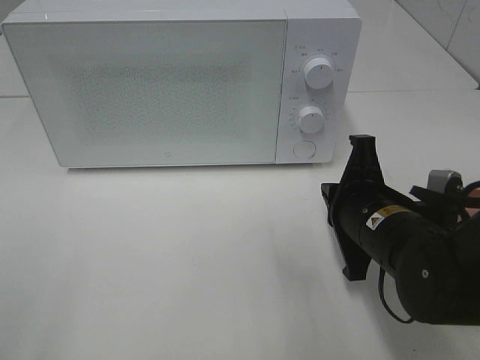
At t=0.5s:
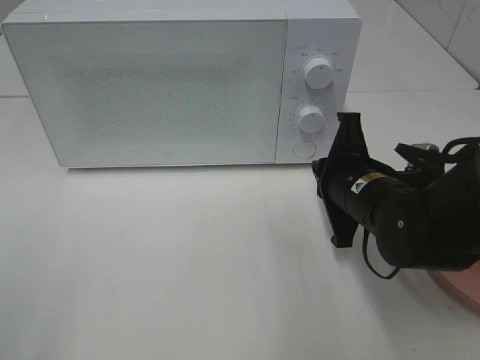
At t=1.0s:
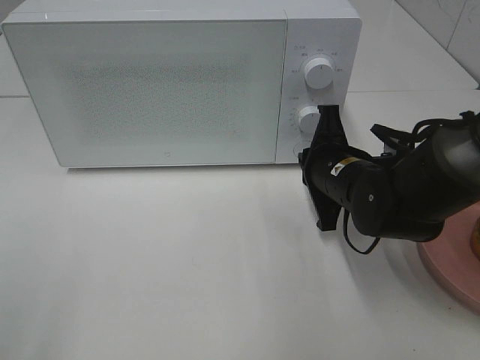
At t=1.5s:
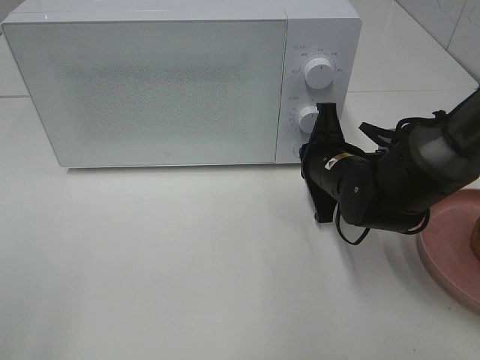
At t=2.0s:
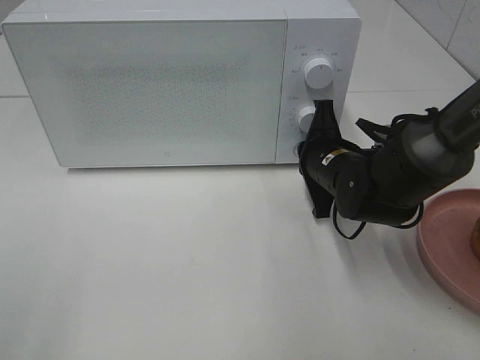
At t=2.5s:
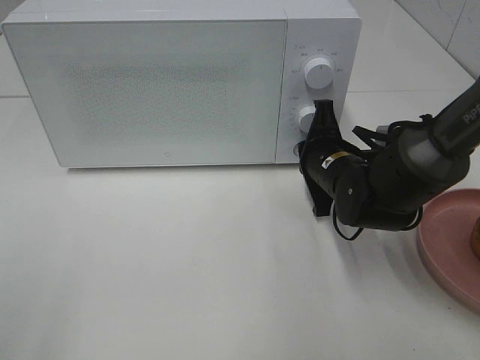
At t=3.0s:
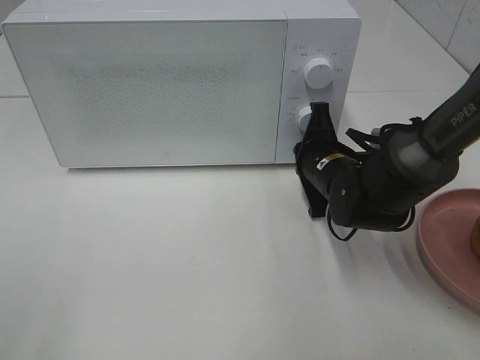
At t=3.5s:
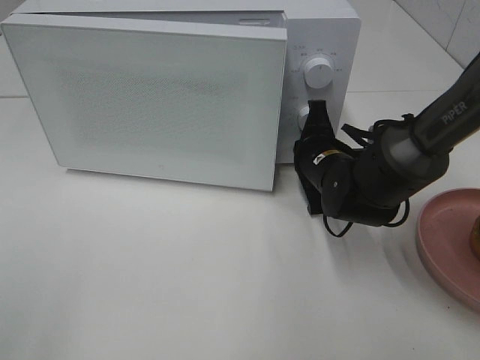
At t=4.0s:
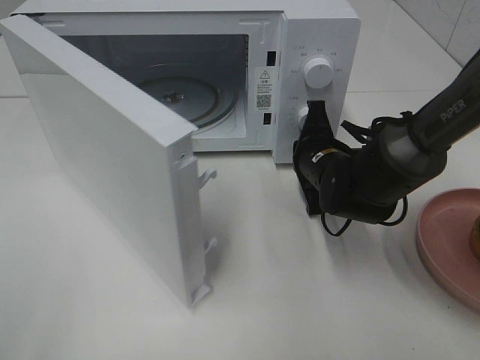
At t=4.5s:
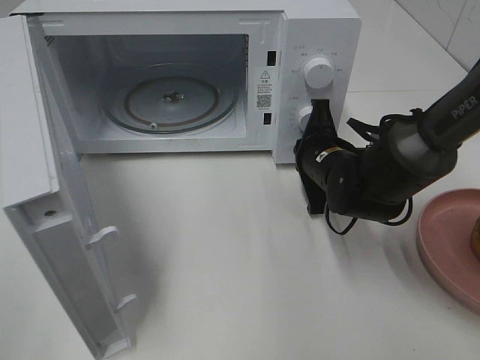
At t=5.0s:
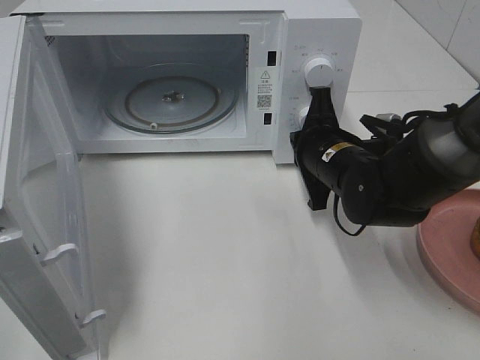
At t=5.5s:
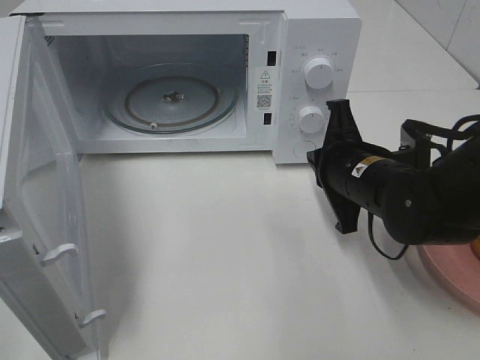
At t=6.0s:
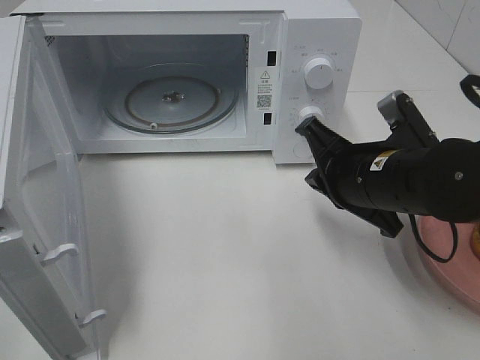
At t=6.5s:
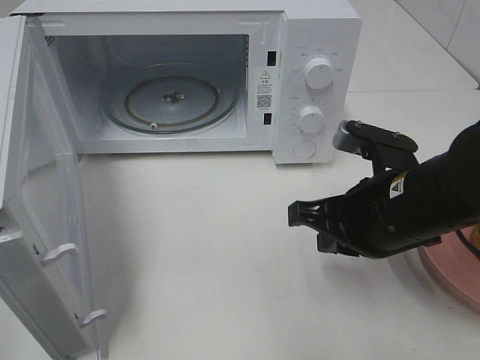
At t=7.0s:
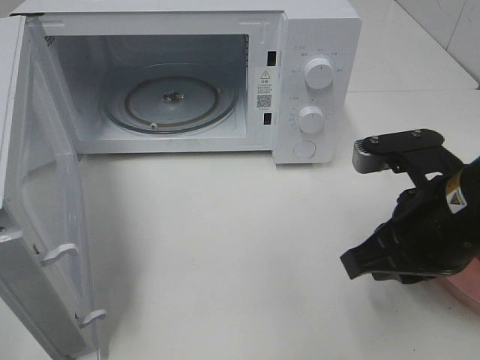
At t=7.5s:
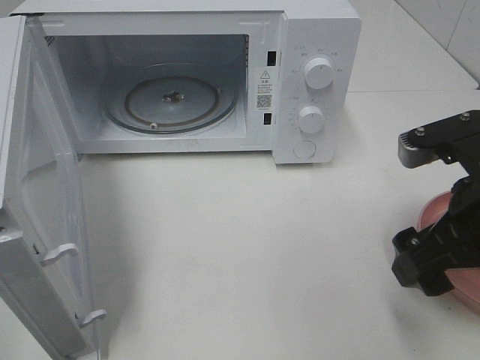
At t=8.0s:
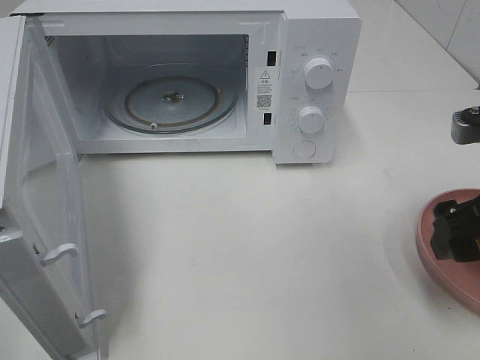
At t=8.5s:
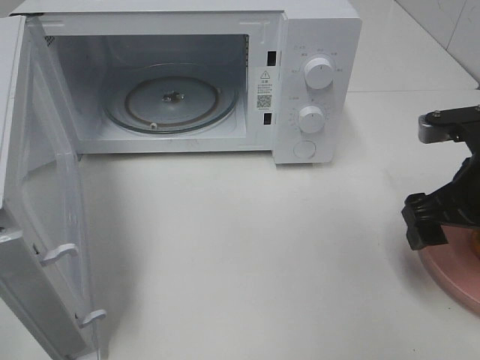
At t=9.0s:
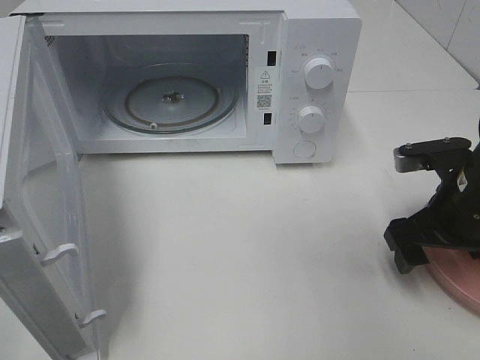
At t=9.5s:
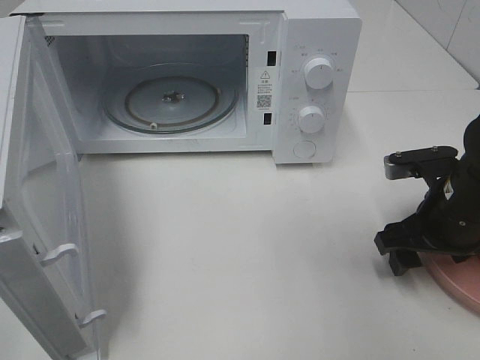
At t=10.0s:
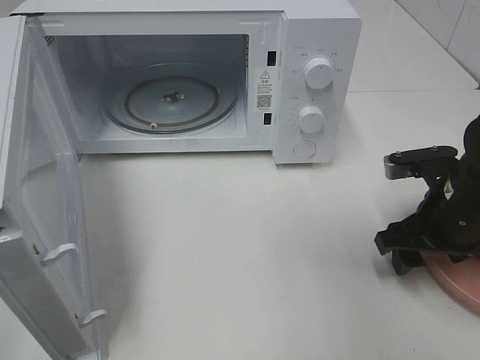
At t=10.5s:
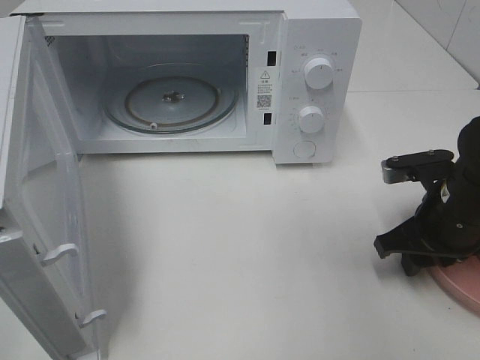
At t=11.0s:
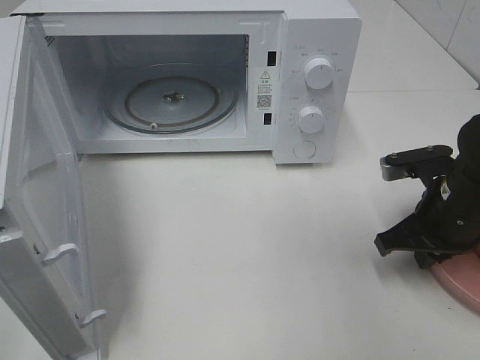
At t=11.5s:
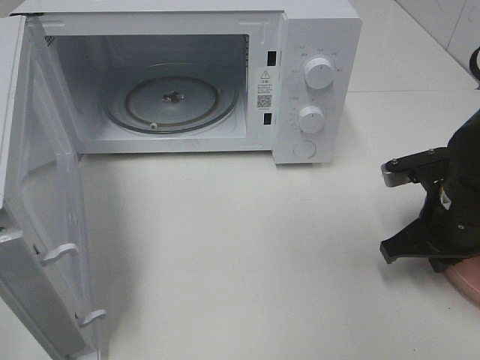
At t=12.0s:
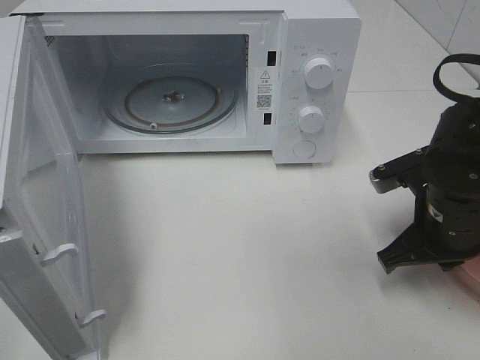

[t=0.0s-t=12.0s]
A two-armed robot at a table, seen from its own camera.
Task of the whole recording: Heat the burger.
Step, t=0.0s to t=4.5s: Right hand: press the switch.
Step, t=5.0s to t=11.0s: Right hand: grab the plate with the hamburger.
t=0.0s to t=2.0s: The right gripper goes about 10 cm forward.
t=4.0s to t=6.0s: The right gripper moves backward and upward, roughly 10 cm.
t=6.0s to t=8.0s: The right gripper is displaced to the right, backward and upward by some 15 cm, and opens its fingers.
t=8.0s to t=10.0s: The right gripper travels downward and forward by about 10 cm.
t=10.0s to t=12.0s: The right gripper closes its fingers.

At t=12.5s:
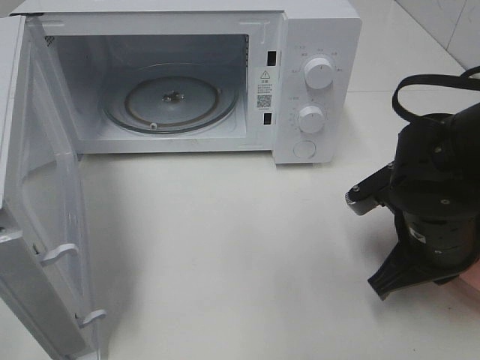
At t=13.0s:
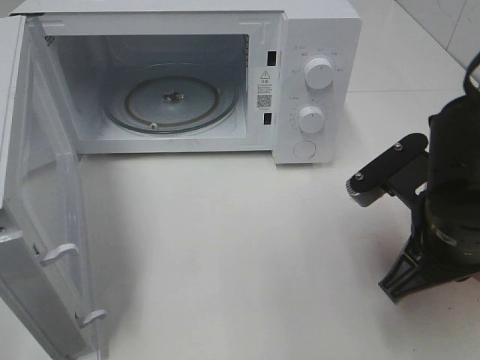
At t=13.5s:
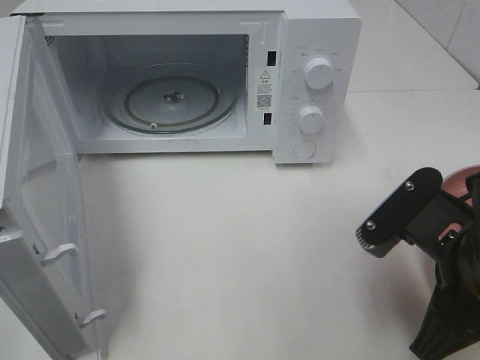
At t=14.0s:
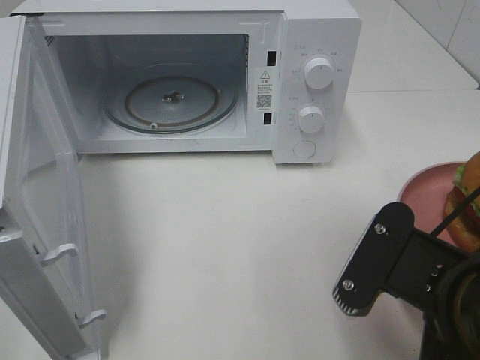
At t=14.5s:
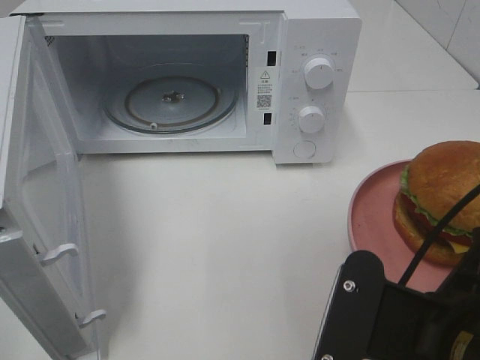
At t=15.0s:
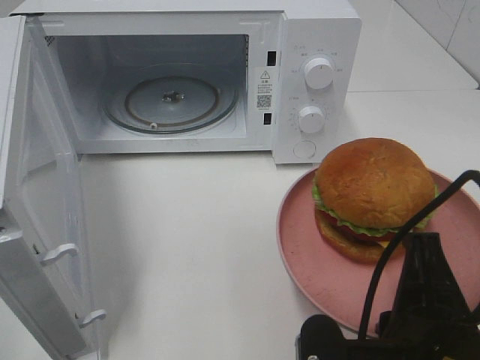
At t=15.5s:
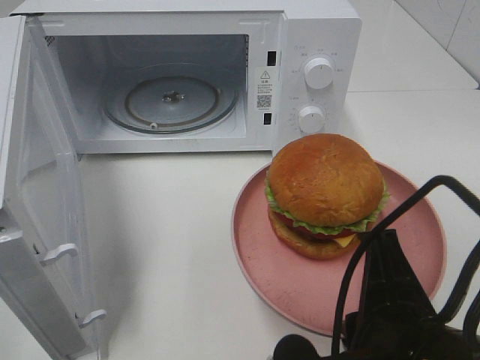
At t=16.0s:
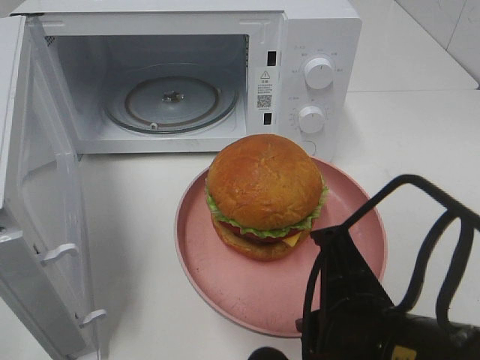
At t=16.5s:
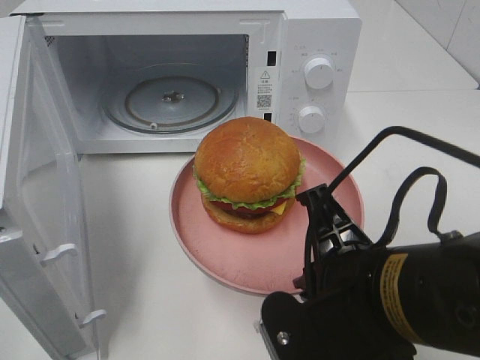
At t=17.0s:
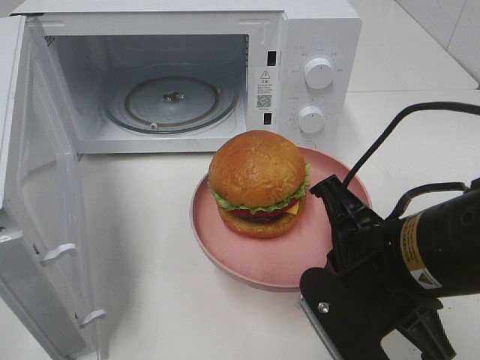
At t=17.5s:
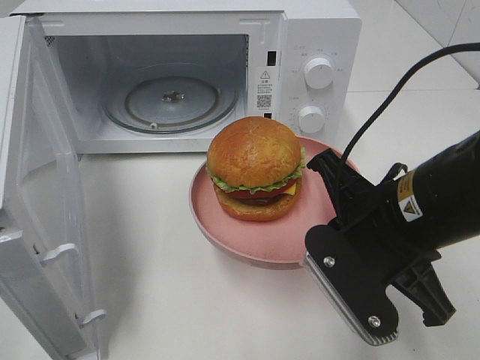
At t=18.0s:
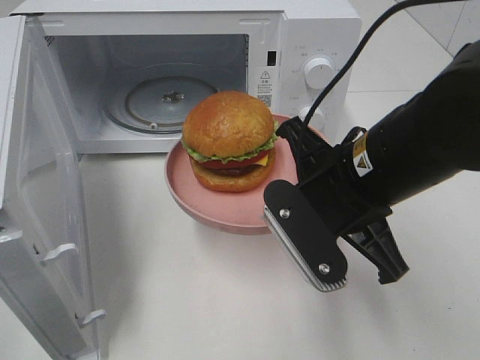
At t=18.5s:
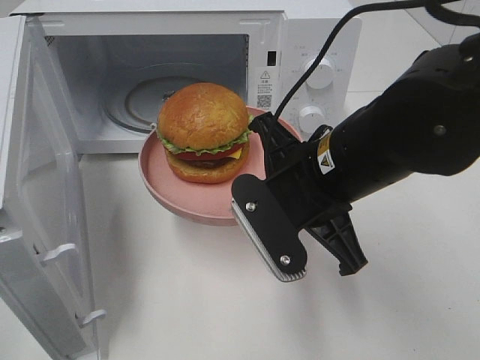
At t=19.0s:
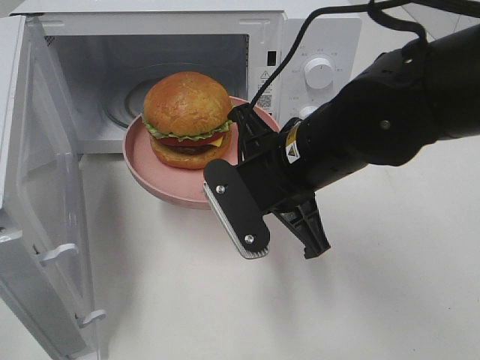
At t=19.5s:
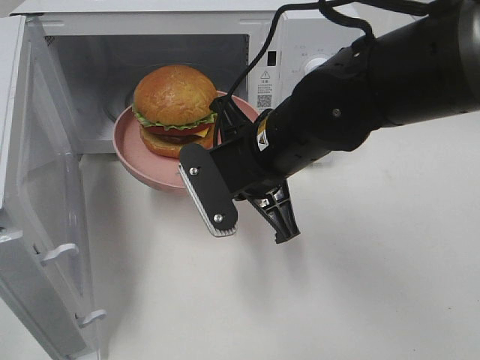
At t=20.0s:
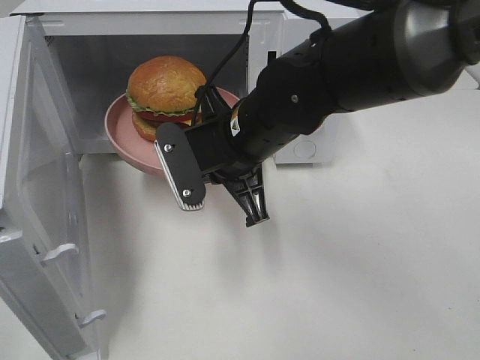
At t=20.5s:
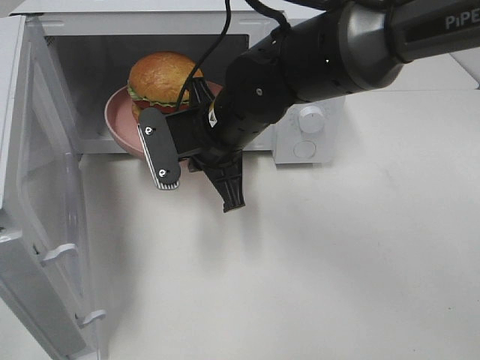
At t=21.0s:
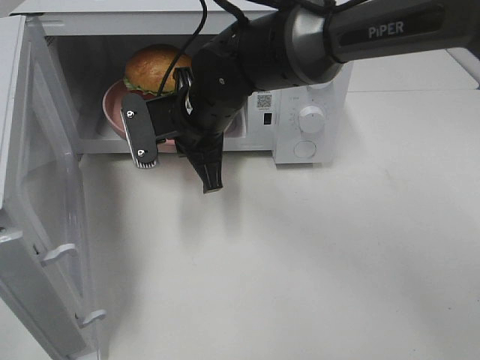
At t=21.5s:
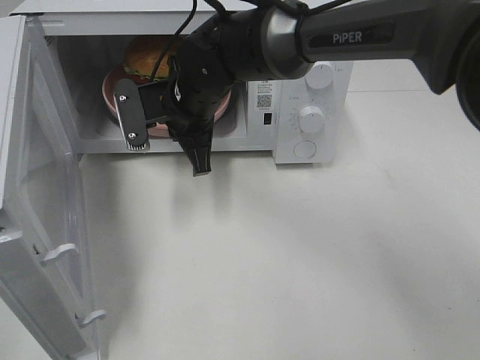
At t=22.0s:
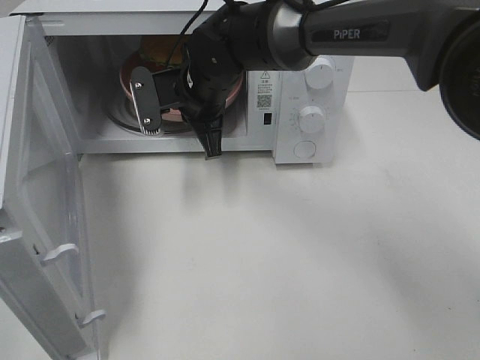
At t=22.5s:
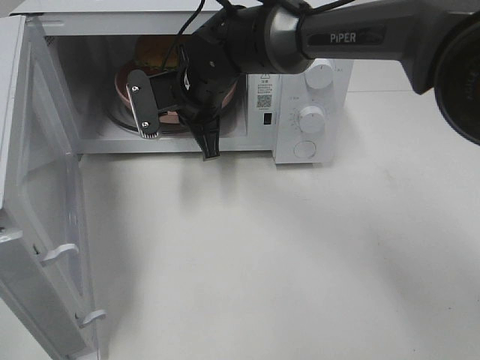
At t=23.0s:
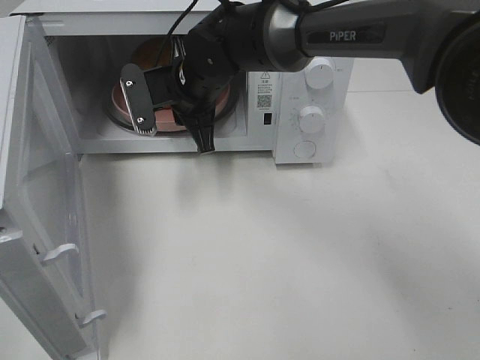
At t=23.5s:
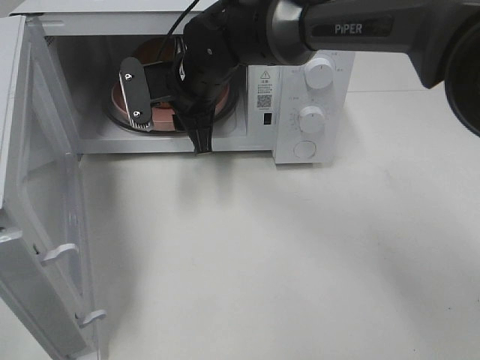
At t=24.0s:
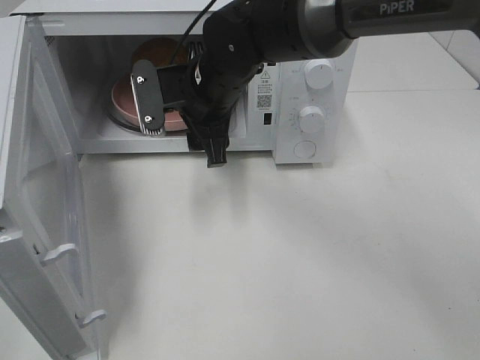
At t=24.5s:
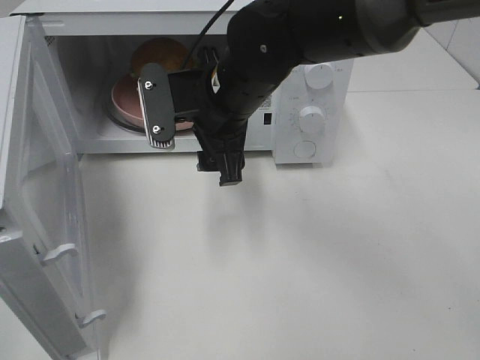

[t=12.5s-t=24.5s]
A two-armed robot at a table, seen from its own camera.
Task of the whole recording: Heat the burger.
Step, t=12.5s to t=23.0s: Right hand: place the plate in the microwave.
t=12.5s to t=14.5s: The right gripper is displaced backward by approximately 15 cm.
t=14.5s to t=16.5s: The right gripper ends up about 5 cm from where it was.
t=16.5s to t=18.5s: The right gripper goes roughly 10 cm forward.
t=18.5s to t=20.5s: The right gripper shifts roughly 15 cm forward and to the left.
t=20.5s to t=22.5s: The right gripper is displaced forward by some 10 cm.
t=22.5s to t=24.5s: The right gripper is displaced backward by approximately 10 cm, and opens its fingers.

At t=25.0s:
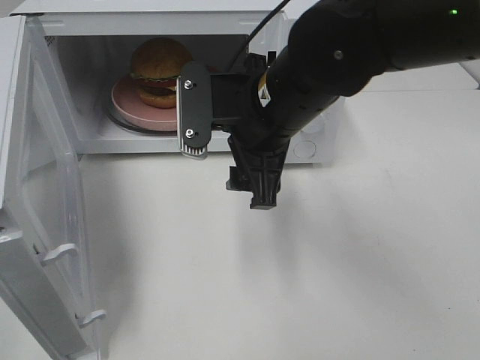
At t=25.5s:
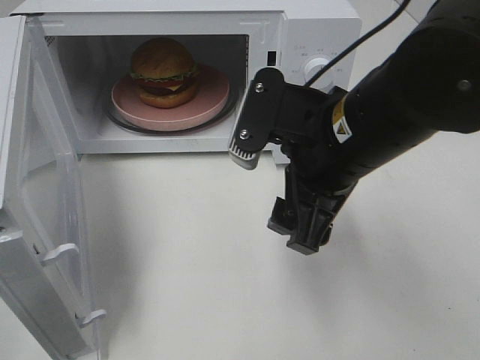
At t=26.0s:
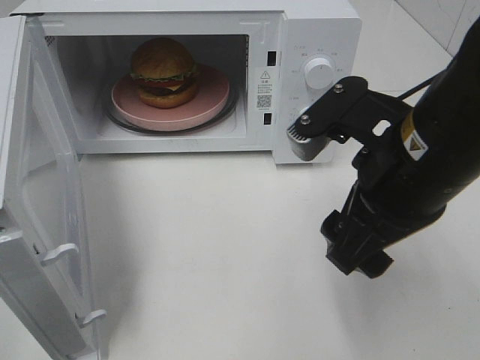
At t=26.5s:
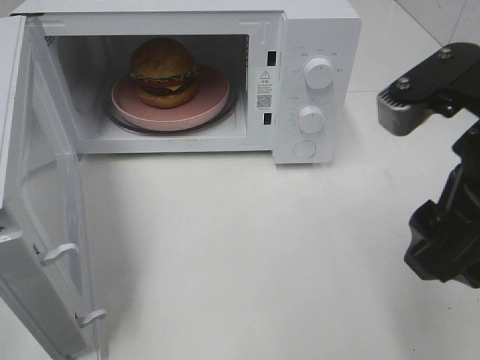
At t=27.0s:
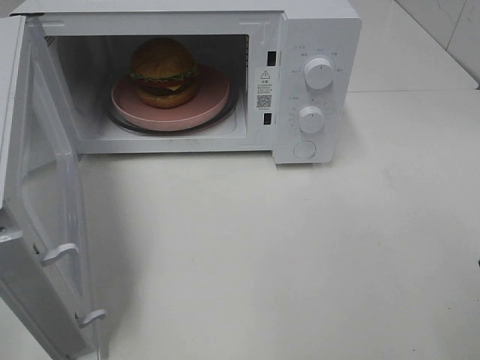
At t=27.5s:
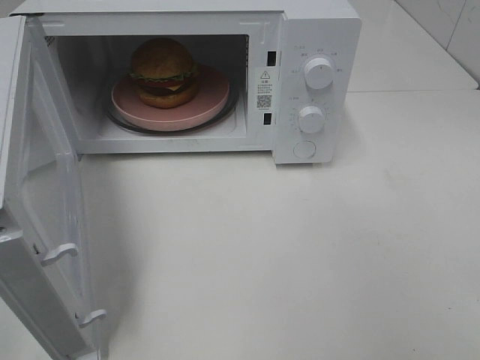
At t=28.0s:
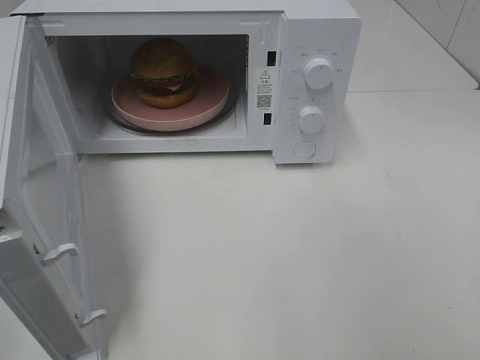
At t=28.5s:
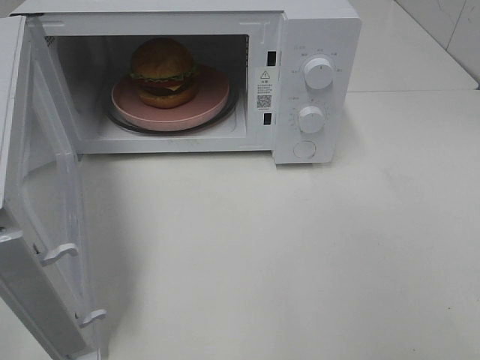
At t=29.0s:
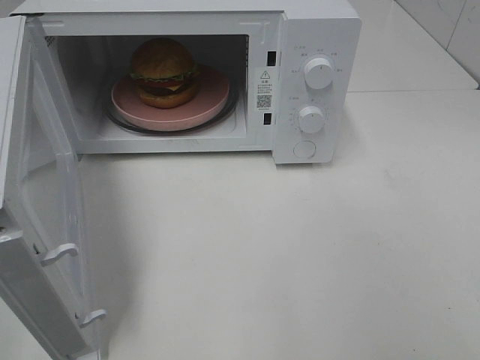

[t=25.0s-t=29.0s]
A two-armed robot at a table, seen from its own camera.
Task of the whole recording: Heat the burger.
t=25.0s to t=27.0s: The right gripper heads to the right, backward and upward, covering some 25 cm.
